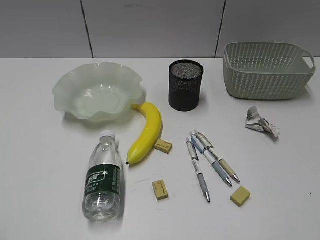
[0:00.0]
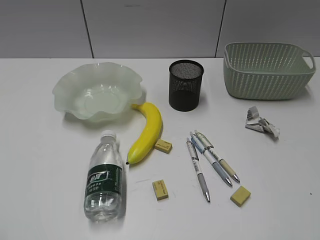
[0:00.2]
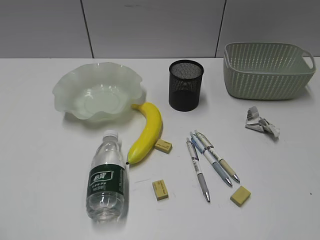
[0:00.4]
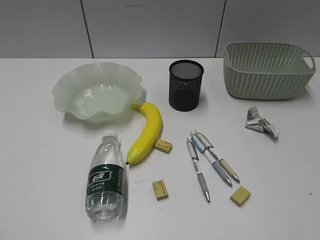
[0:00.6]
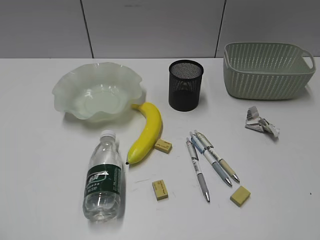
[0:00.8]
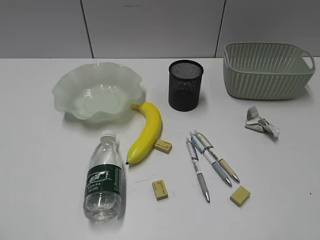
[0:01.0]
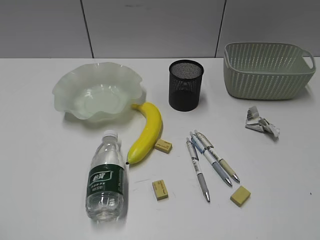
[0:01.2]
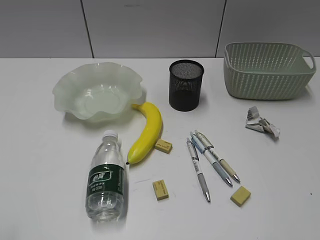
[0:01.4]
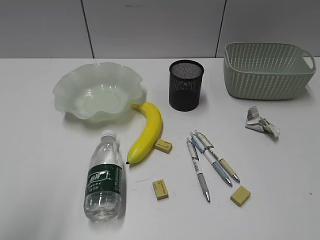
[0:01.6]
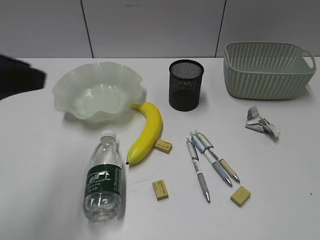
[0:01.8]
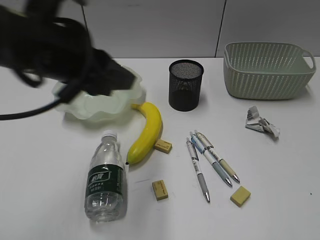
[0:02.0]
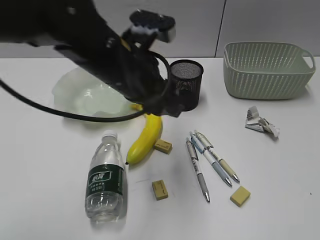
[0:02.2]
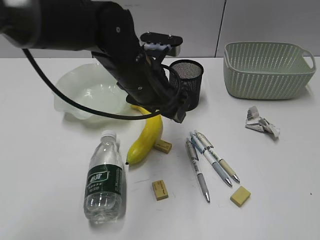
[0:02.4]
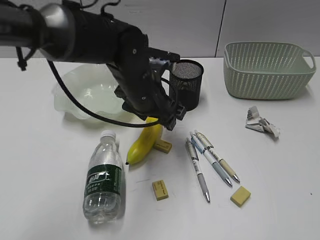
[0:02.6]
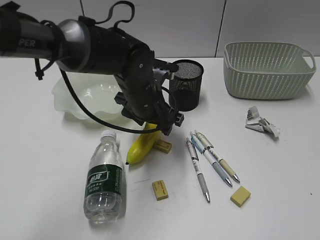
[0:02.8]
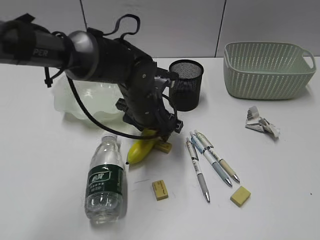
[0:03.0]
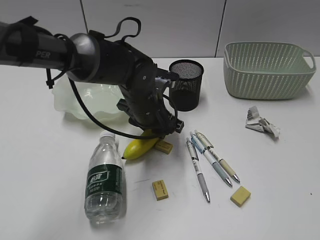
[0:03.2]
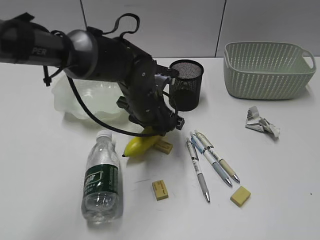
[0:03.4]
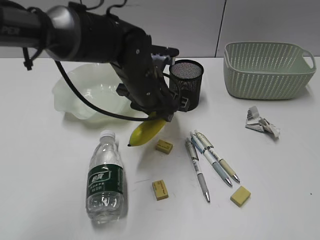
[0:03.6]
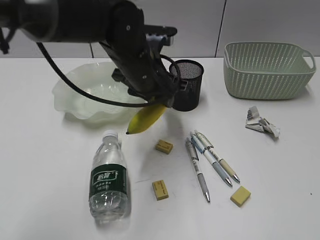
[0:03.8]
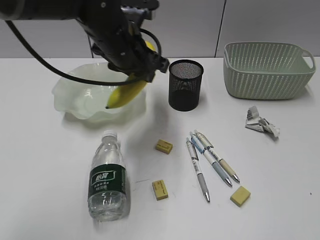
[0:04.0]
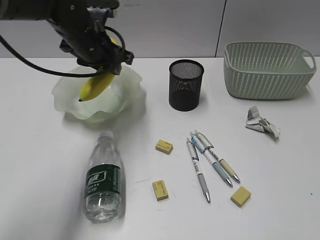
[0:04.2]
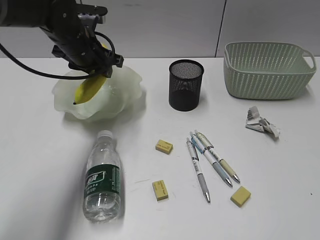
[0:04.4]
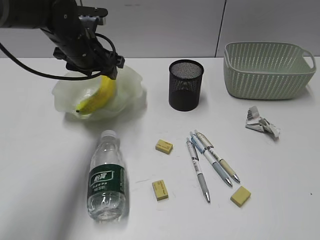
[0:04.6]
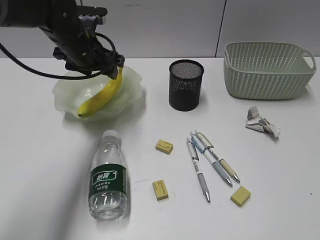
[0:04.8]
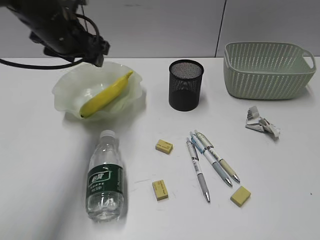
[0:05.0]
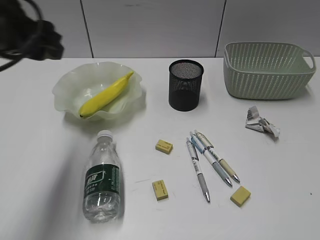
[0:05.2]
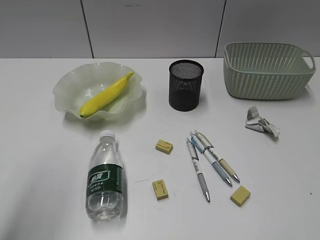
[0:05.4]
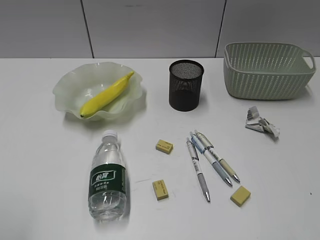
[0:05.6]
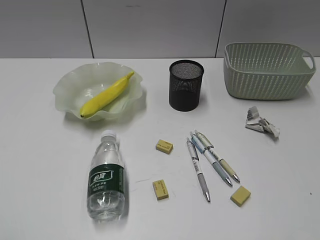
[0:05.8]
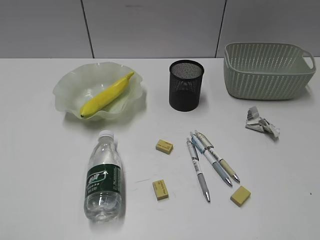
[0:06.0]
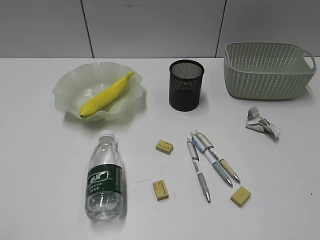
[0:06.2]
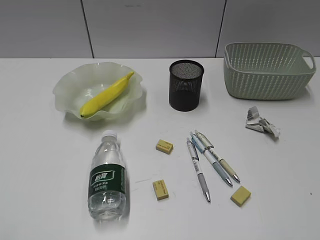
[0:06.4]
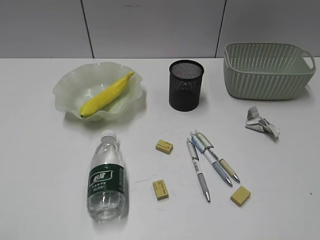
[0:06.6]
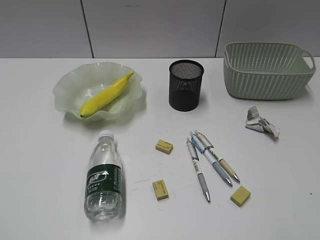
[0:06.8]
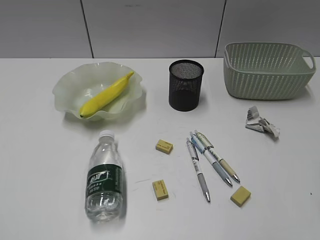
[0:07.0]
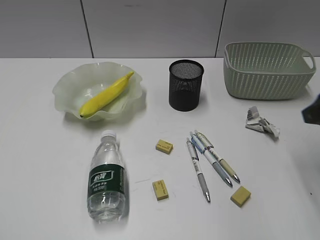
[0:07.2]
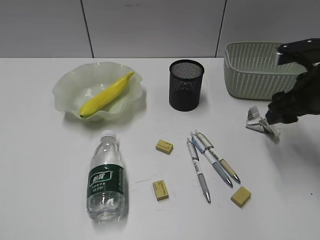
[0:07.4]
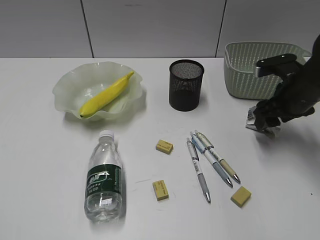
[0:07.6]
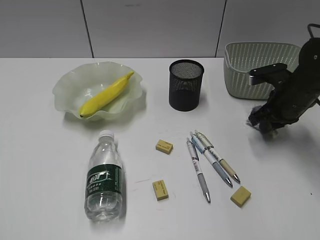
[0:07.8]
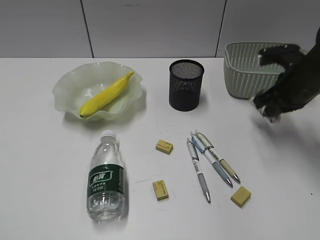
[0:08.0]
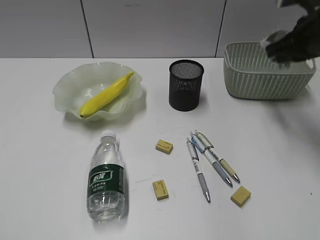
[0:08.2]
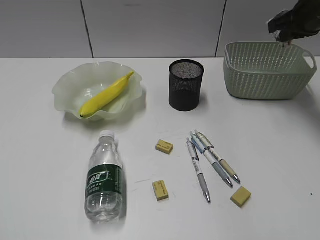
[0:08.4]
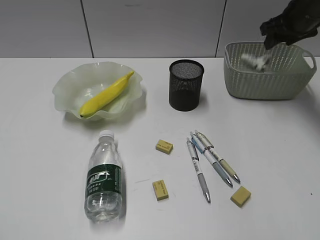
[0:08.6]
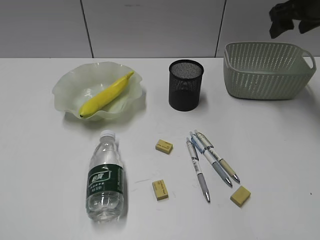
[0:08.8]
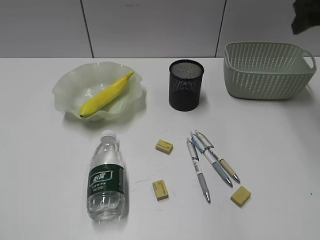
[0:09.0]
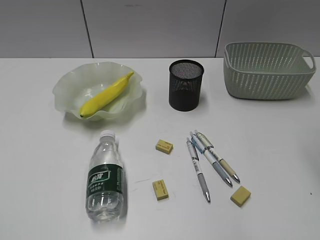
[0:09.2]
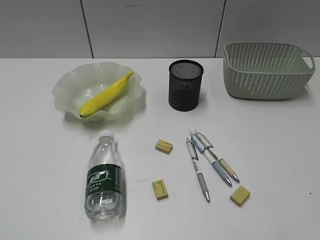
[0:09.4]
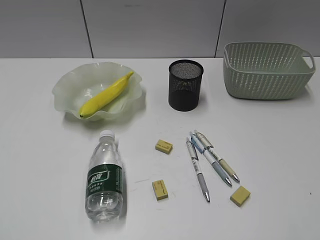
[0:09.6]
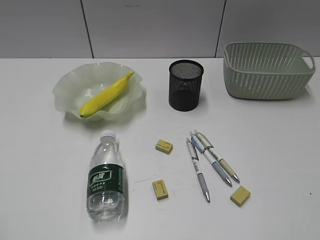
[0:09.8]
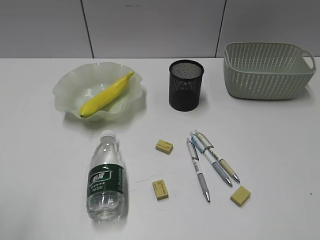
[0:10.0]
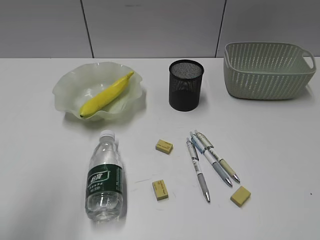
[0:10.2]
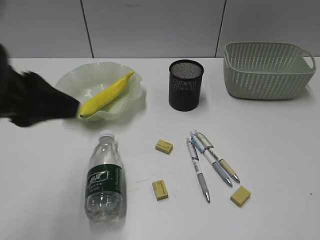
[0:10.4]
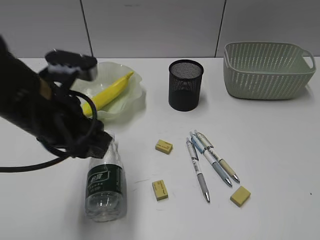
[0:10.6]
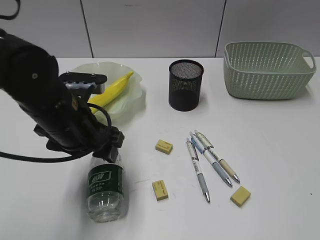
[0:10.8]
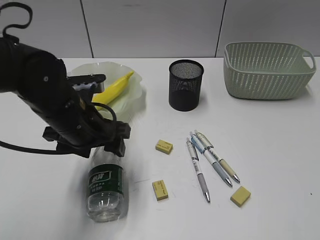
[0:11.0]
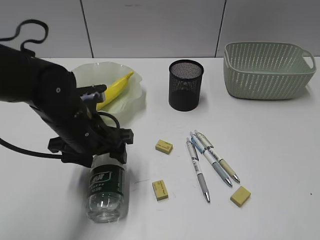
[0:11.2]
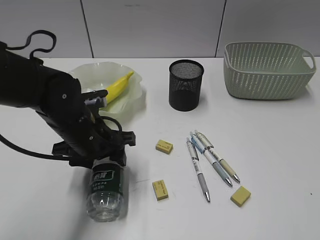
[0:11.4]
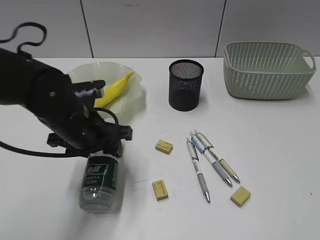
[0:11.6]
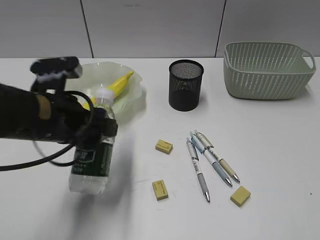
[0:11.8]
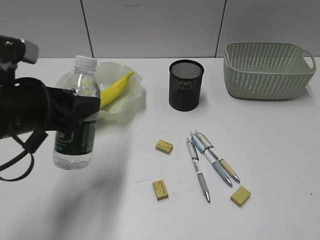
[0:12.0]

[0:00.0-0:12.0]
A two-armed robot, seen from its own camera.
Step, 0:01.4 to 0:03.2: Grasp the banana with left gripper.
Step, 0:03.4 to 0:04.6: Place the banana in the plate with left gripper.
Step, 0:04.8 to 0:07.8: Grasp the waste paper with right gripper.
Step, 0:08.0 to 0:08.6: Place the waste paper in the basket with right gripper.
Step, 0:08.8 to 0:11.4: Grasp the bottle with left gripper.
0:01.6 to 0:03.0: The left gripper shifts roughly 40 cm forward, to the right and downward, and opens up.
0:03.0 to 0:04.4: The left gripper goes about 15 cm to the left, upward and forward, and closes up.
0:04.4 to 0:06.0: The left gripper travels backward and to the left by roughly 50 cm.
0:06.0 to 0:07.6: The right gripper goes roughly 35 cm forward, and opens its fingers.
0:07.6 to 0:09.0: The right gripper is displaced upward by some 15 cm, and closes, then reopens.
0:09.0 to 0:10.4: The right gripper shifts some 40 cm backward; the left gripper heads forward and to the right, covering approximately 25 cm.
0:10.4 to 0:12.0: The left gripper heads downward, covering approximately 10 cm.

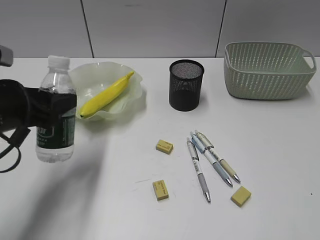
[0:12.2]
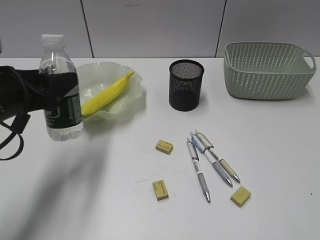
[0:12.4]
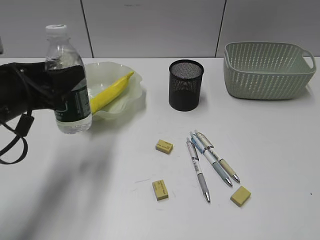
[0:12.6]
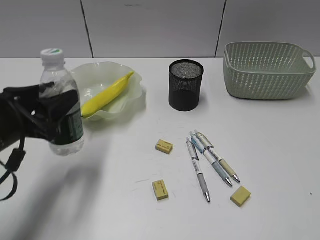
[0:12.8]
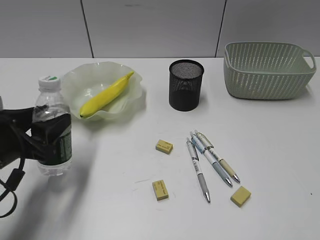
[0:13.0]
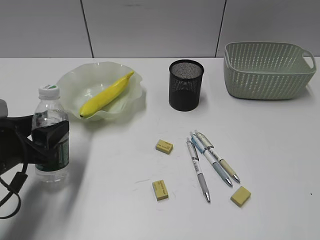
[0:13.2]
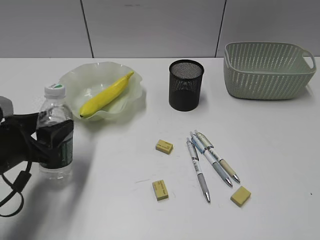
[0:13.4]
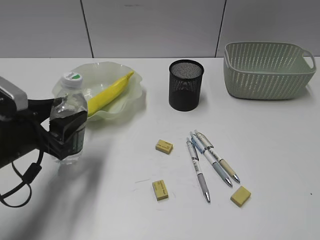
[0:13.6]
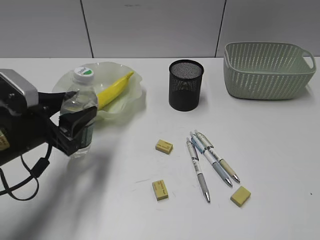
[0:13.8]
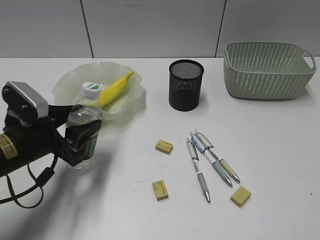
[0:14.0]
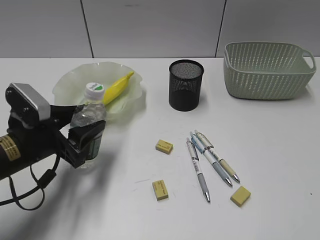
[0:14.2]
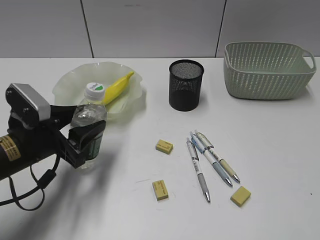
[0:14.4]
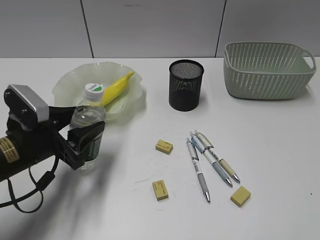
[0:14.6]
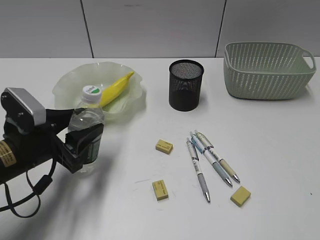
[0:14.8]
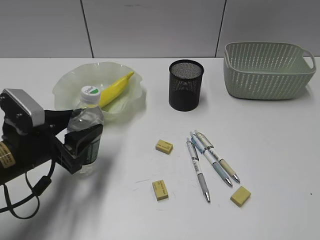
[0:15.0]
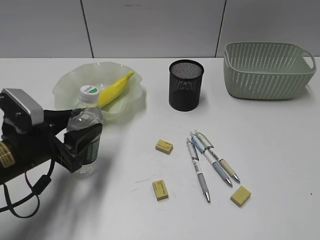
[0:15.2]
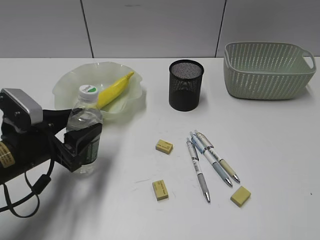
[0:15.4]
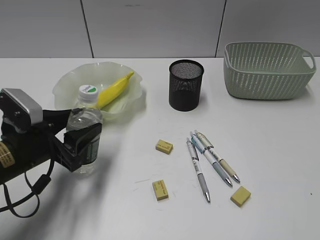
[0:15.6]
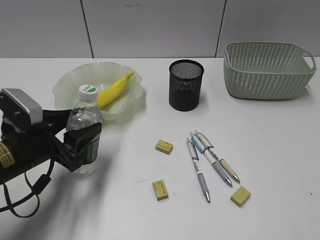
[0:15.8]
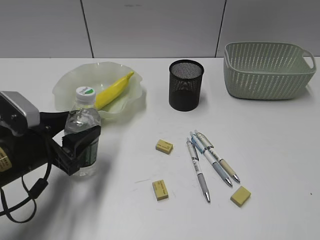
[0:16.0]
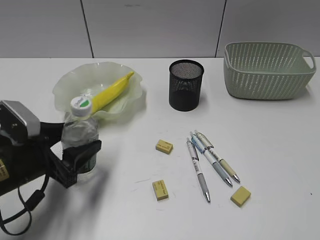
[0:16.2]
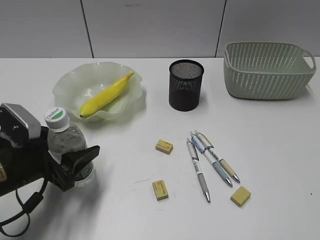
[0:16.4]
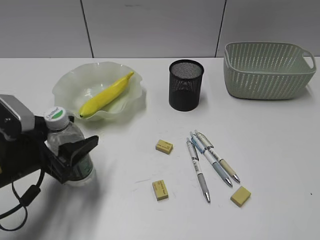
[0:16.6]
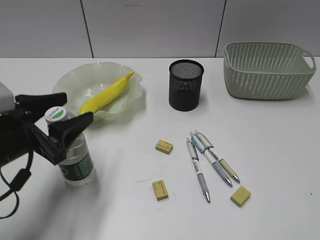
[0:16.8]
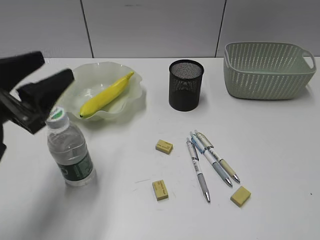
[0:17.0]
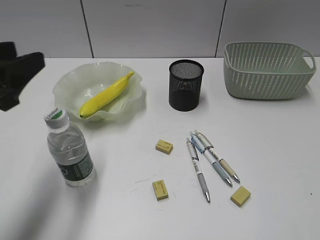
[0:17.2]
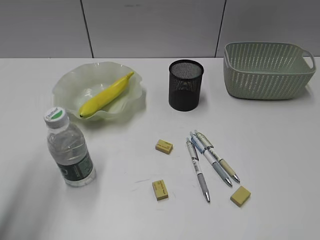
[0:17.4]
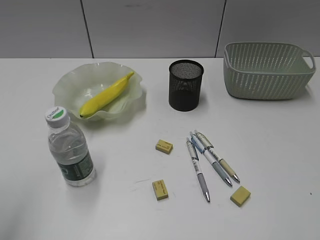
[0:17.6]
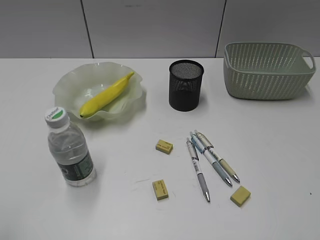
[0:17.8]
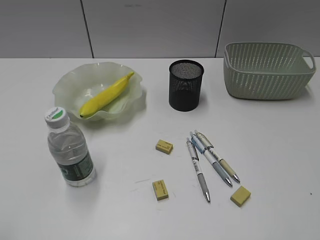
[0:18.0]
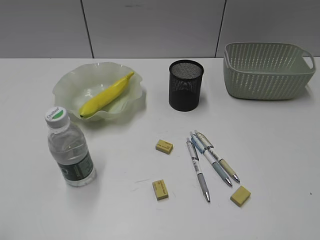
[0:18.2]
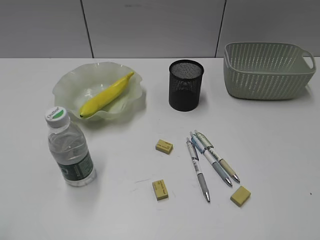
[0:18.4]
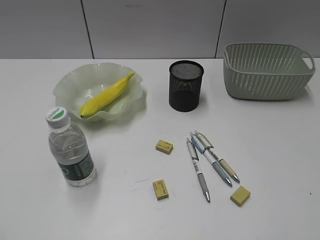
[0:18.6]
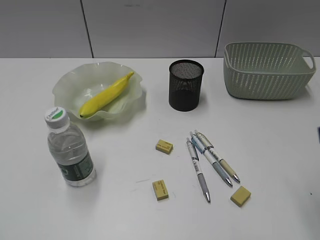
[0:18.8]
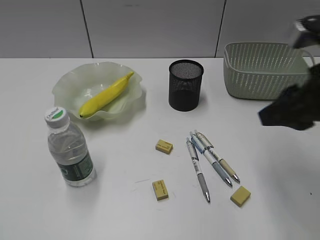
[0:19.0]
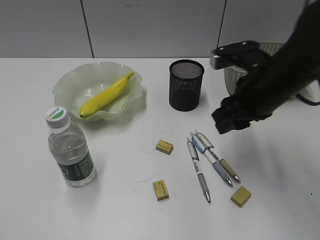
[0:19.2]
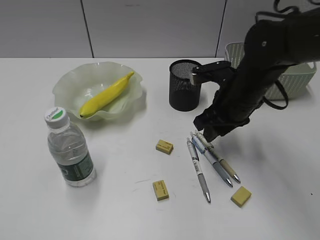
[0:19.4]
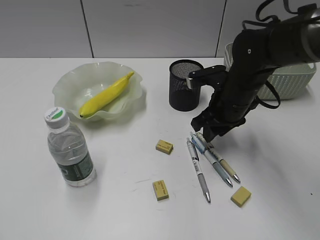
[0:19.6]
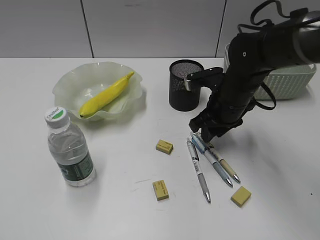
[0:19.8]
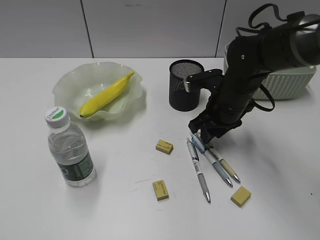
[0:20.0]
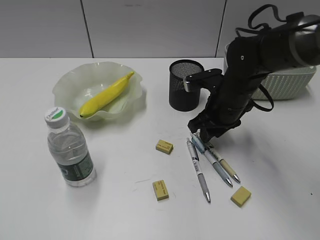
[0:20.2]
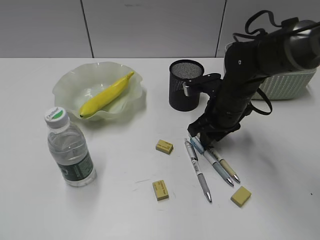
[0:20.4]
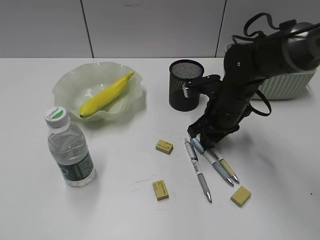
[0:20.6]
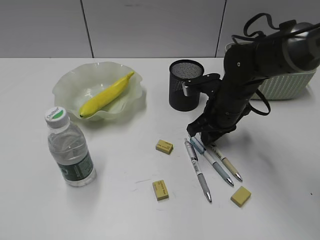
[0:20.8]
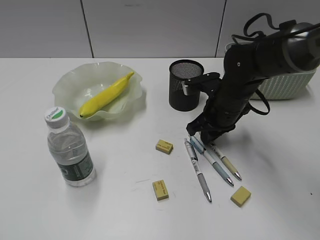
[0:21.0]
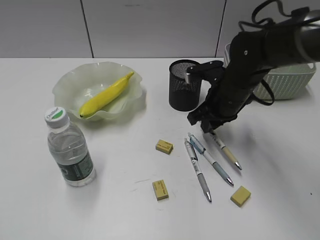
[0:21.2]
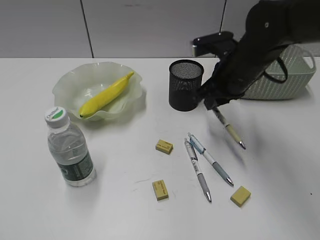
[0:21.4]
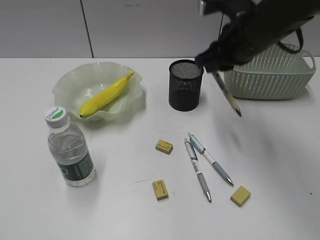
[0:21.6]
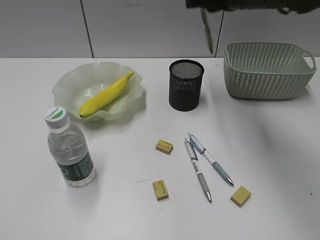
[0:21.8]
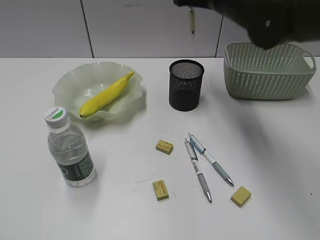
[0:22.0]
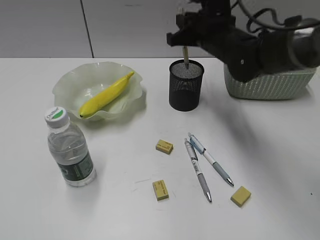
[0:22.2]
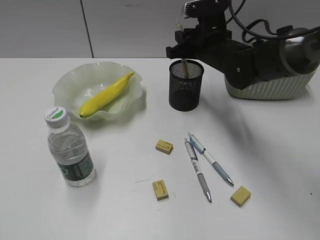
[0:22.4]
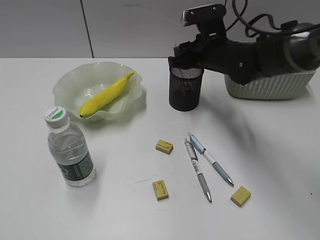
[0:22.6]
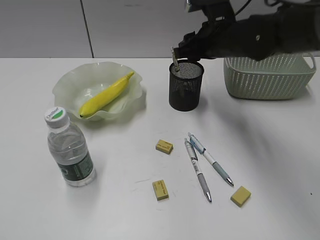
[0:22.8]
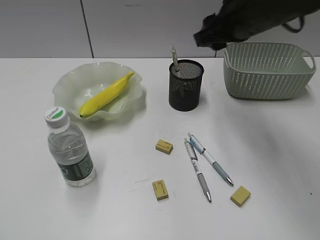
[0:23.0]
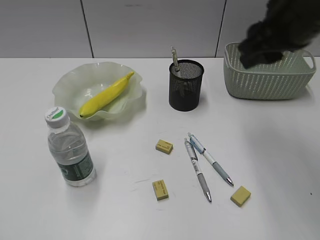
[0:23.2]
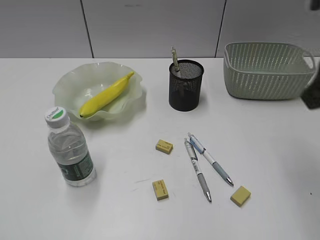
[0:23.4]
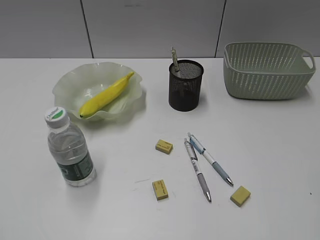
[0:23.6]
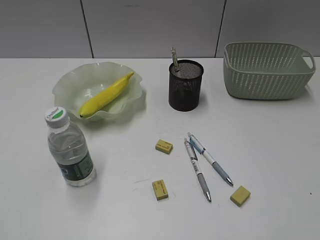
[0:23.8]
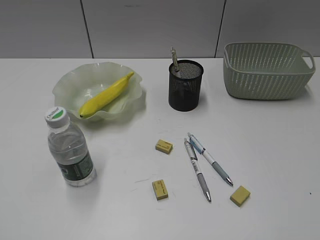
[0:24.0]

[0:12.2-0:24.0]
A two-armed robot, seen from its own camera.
Step, 0:12.2 to 0:16.8: Stand the bottle with left gripper.
Step, 0:17.0 to 0:21.0: Grasp the yellow pen with right gripper.
Step, 0:21.2 to 0:22.8: Place the yellow pen in pen holder with right gripper.
0:12.2 to 0:13.6: The left gripper is displaced downward by roughly 5 cm.
0:13.6 to 0:16.6: The grippers make only small movements.
0:16.6 to 0:18.2: The left gripper shifts some 30 cm backward, upward and to the left, and closes its fingers.
0:18.2 to 0:19.6: The right gripper moves forward, to the left and downward, some 40 cm.
0:19.6 to 0:21.0: The right gripper closes up.
0:21.0 to 0:22.6: The right gripper heads forward, covering about 5 cm, moves roughly 20 cm upward and comes back, and opens up.
0:22.6 to 0:24.0: The right gripper is displaced backward and to the right by some 40 cm, and opens its fingers.
